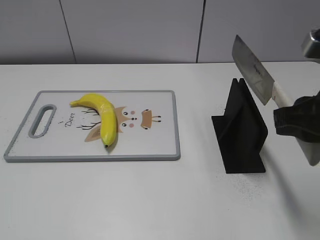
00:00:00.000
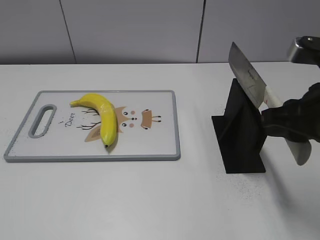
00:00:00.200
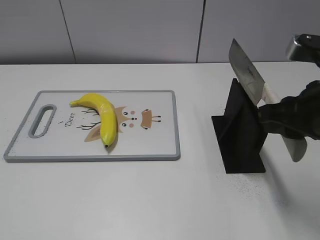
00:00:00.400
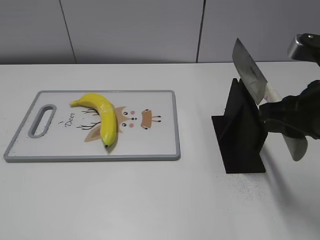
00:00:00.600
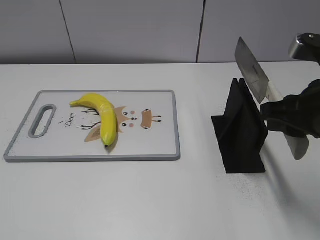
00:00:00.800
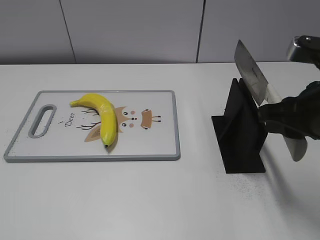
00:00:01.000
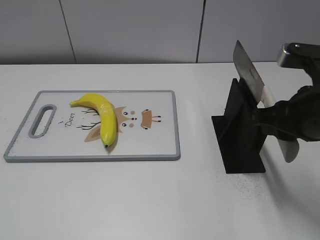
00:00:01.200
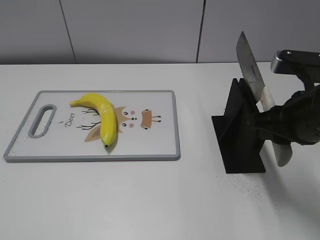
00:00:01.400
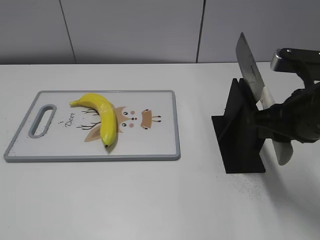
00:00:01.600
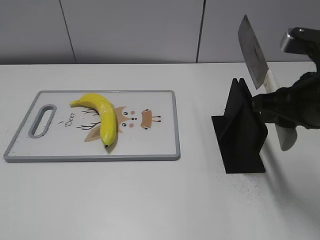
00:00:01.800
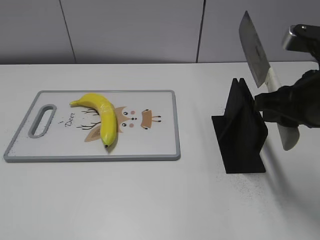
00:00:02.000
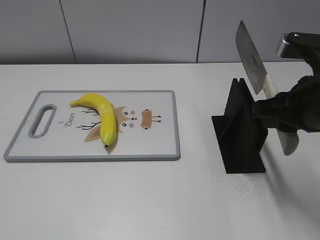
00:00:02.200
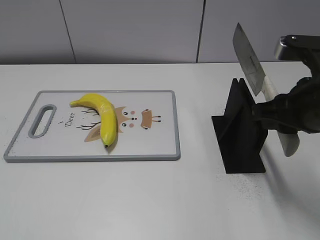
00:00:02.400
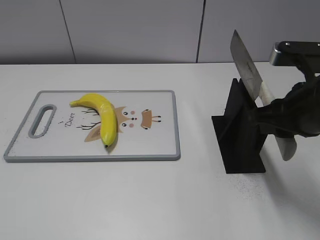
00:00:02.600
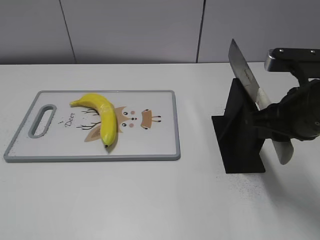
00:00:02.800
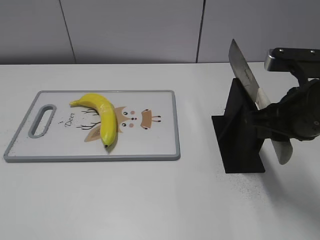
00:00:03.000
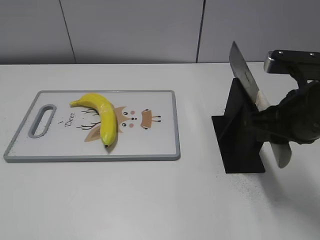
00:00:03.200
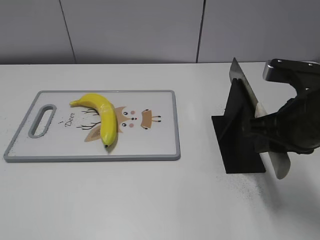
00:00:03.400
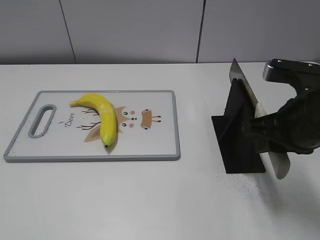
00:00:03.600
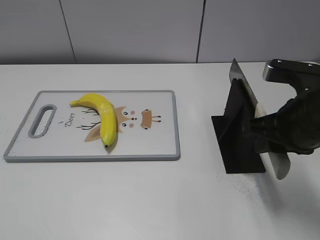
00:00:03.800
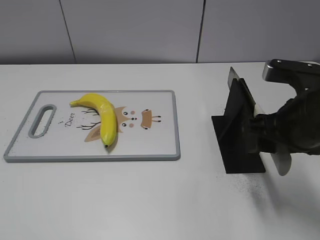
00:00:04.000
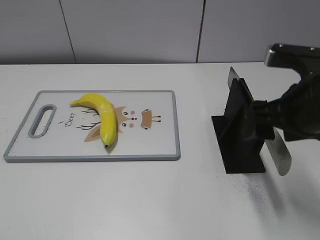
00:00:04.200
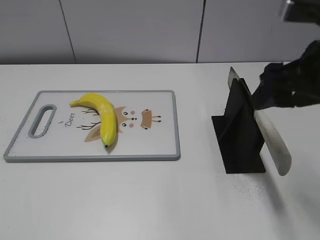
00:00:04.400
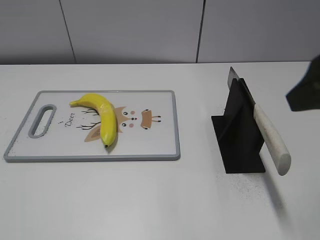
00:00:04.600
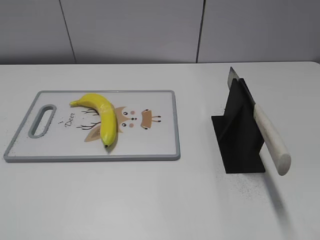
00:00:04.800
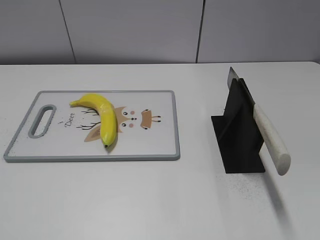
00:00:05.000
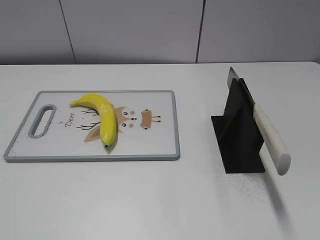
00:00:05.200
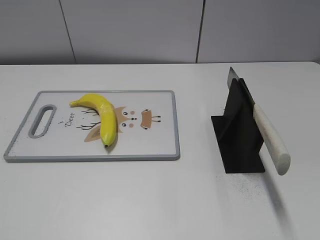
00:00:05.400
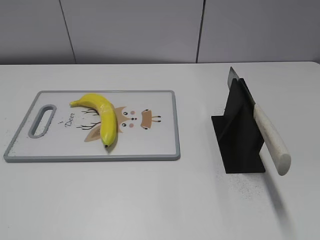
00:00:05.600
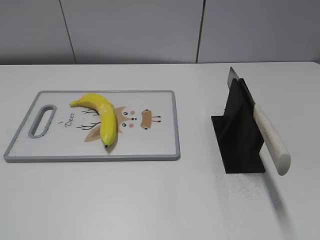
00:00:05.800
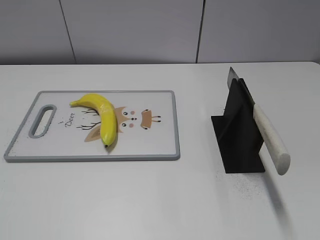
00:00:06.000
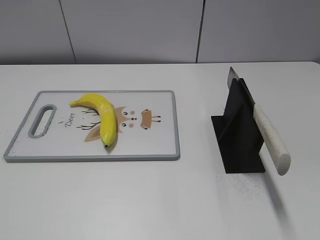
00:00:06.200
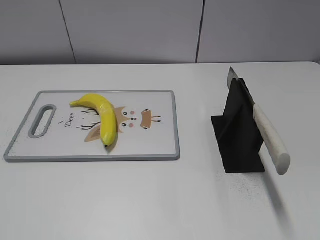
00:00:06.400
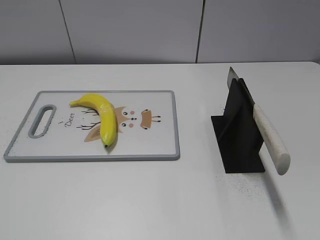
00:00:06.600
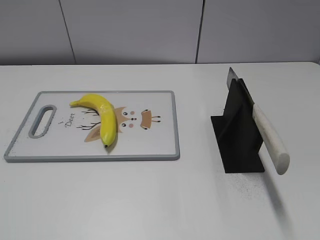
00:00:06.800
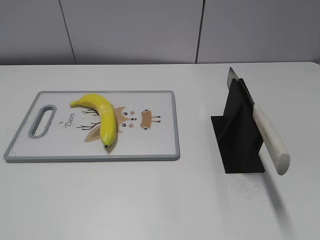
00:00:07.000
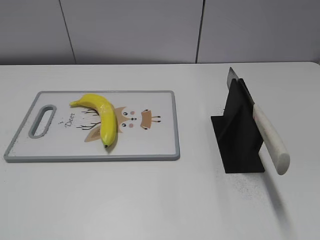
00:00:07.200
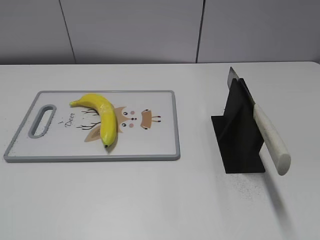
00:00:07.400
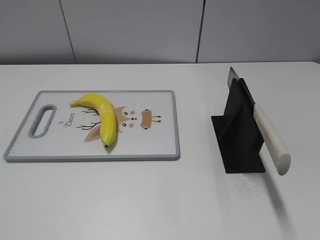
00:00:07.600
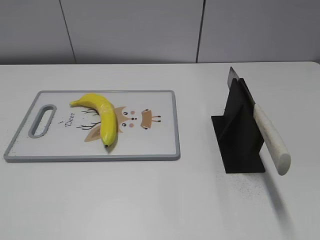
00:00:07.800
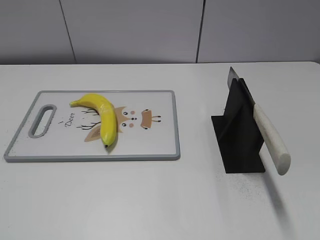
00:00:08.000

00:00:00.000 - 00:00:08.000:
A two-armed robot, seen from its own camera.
Task of the whole recording: cut plastic banana.
Step, 00:00:00.000 - 00:00:08.000: Place the knife on the storage rack with your right hand.
00:00:00.000 - 00:00:01.600: The right gripper ends up some 5 cm from where it was.
00:00:01.600 - 00:00:03.200: There are only small adjustments of the grippers.
00:00:03.200 - 00:00:04.800: The right gripper travels upward and backward by roughly 15 cm, and opens up.
